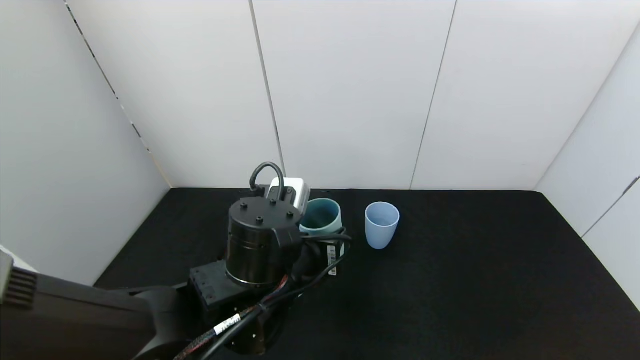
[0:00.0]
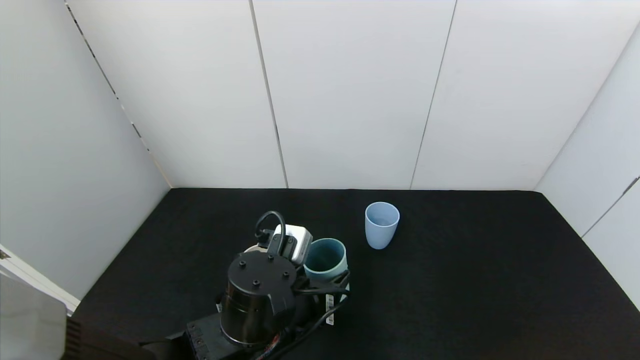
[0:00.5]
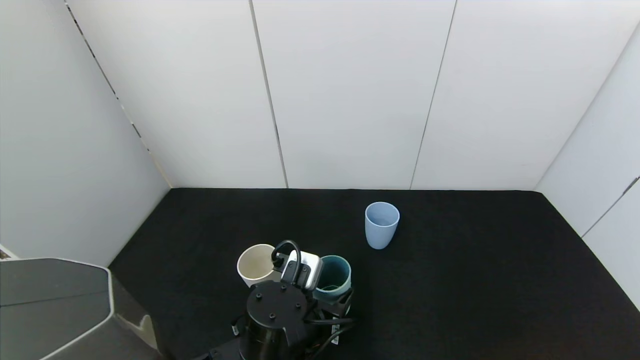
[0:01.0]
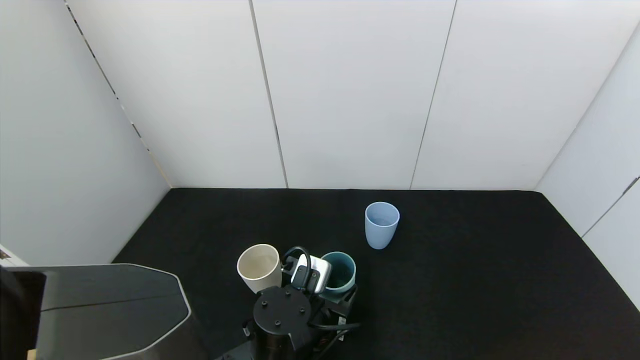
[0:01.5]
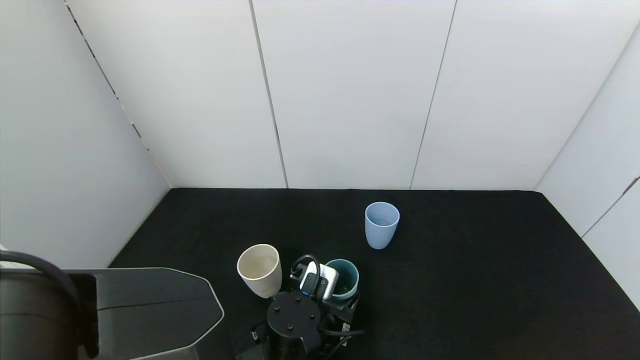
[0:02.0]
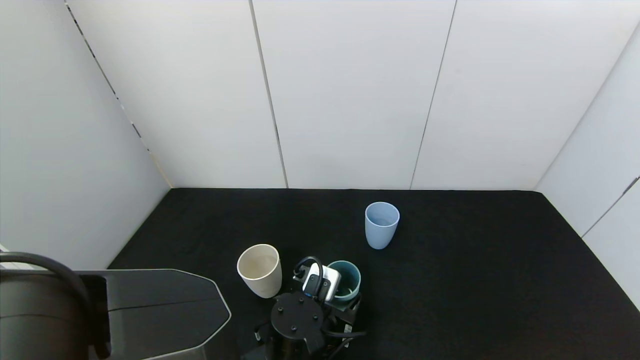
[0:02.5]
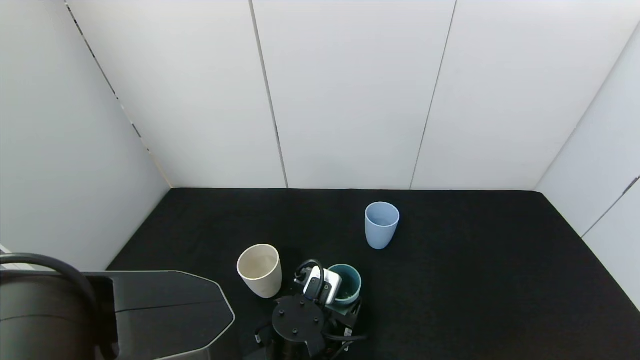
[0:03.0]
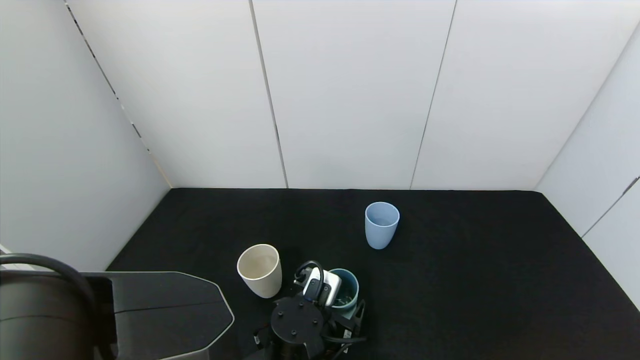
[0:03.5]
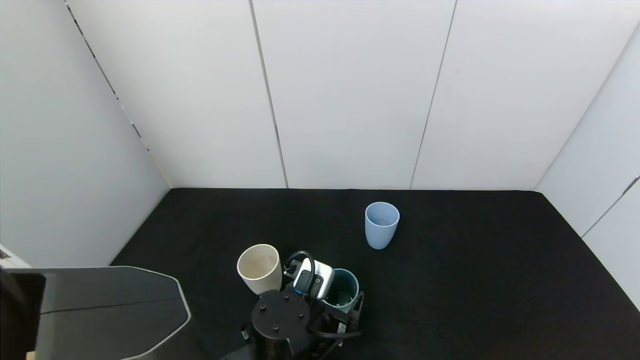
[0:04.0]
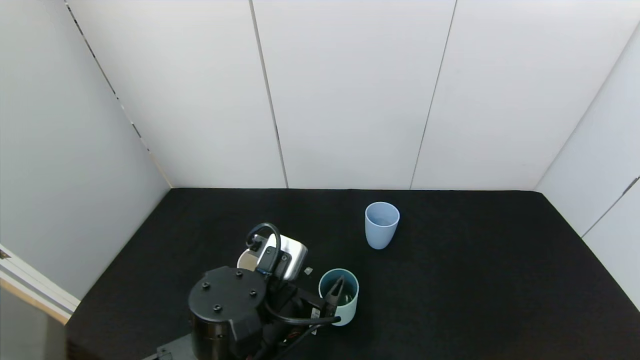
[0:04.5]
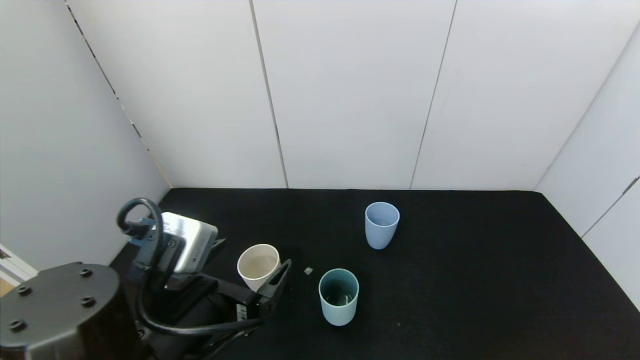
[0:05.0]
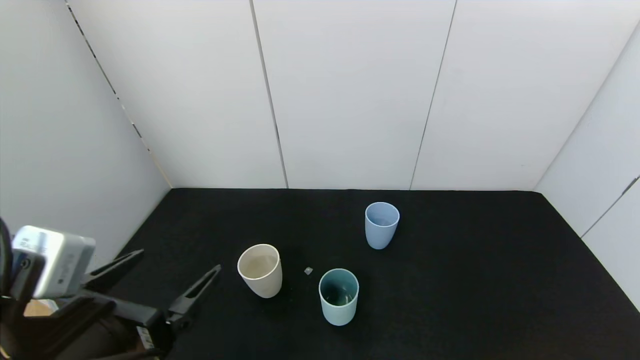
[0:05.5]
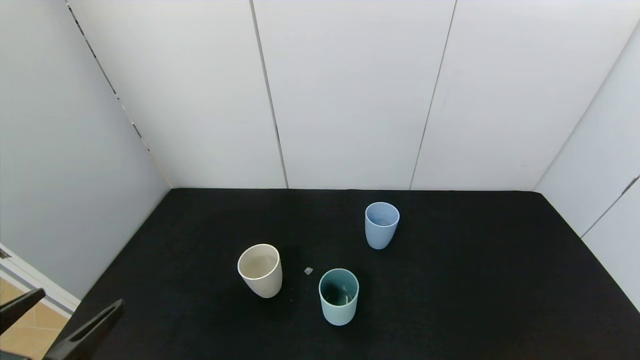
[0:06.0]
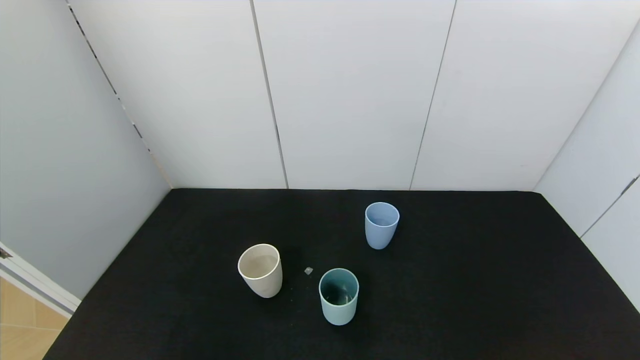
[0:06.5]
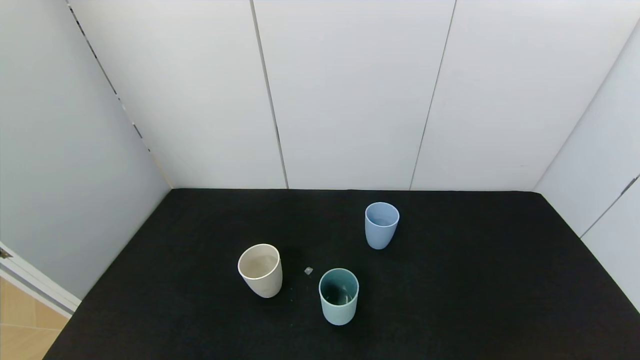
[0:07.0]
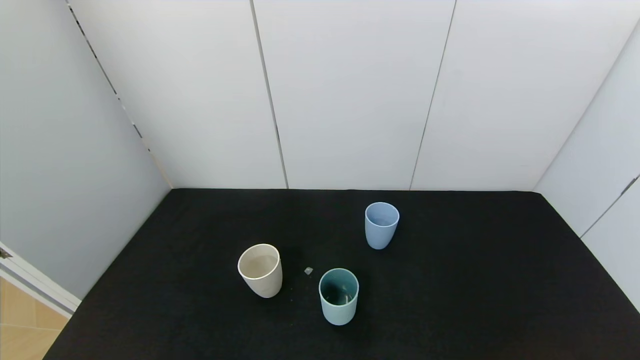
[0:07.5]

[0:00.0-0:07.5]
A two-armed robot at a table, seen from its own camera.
Task of the whole recording: use the gripper to pour the water into the other two cups on black table.
Step, 0:00.0 to 0:05.0: Place the green cup with the left gripper.
0:00.0 to 0:02.0: The left gripper shifts approximately 15 cm downward.
0:02.0 to 0:04.0: The left gripper opens up.
0:04.0 to 0:05.5: The left gripper goes about 20 cm to the left, upward and backward.
0:05.5 to 0:07.5: The left gripper goes roughly 20 cm backward, downward and to the left.
